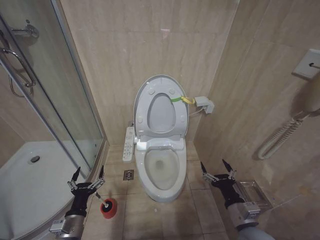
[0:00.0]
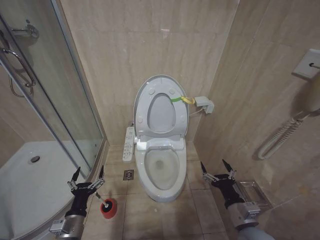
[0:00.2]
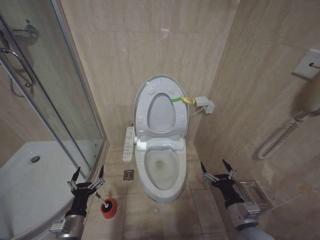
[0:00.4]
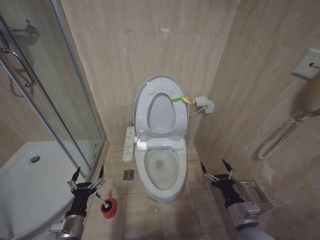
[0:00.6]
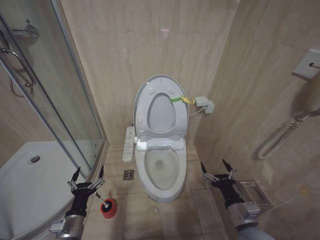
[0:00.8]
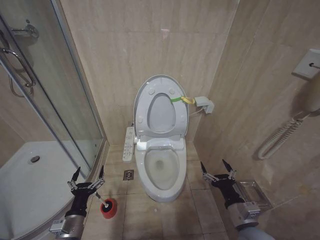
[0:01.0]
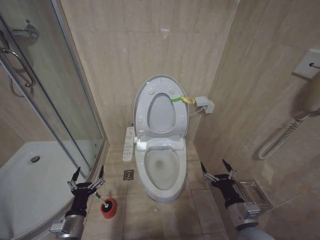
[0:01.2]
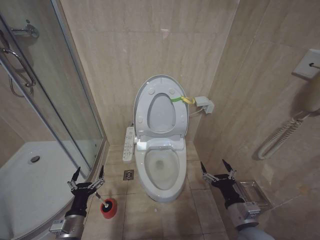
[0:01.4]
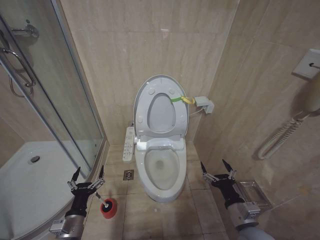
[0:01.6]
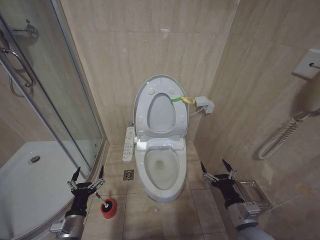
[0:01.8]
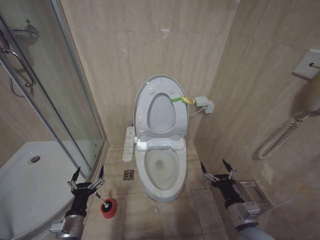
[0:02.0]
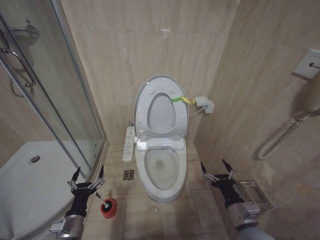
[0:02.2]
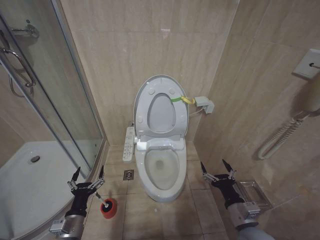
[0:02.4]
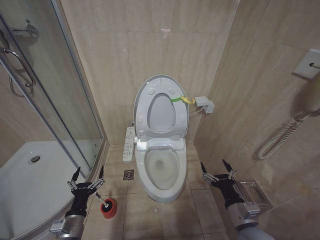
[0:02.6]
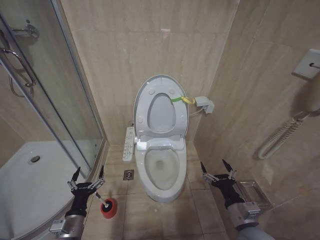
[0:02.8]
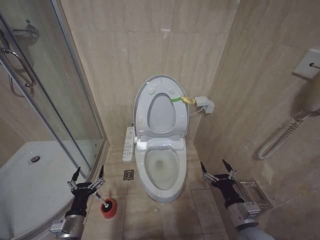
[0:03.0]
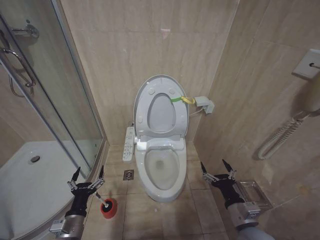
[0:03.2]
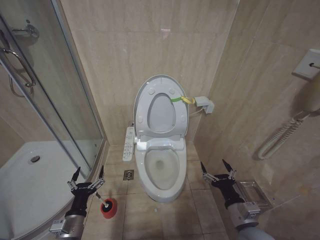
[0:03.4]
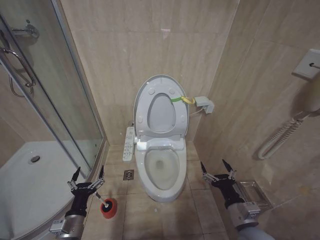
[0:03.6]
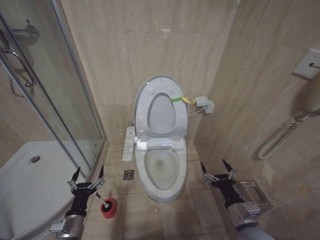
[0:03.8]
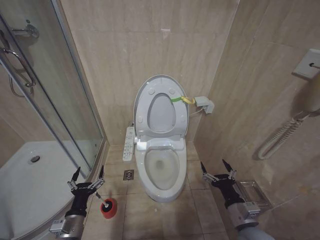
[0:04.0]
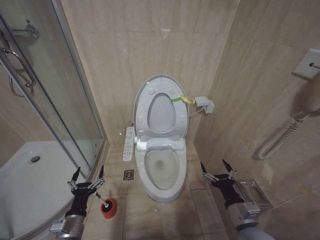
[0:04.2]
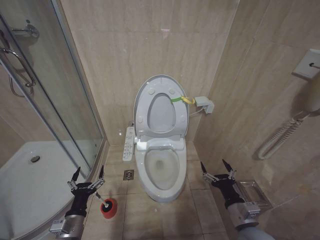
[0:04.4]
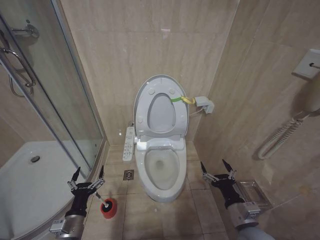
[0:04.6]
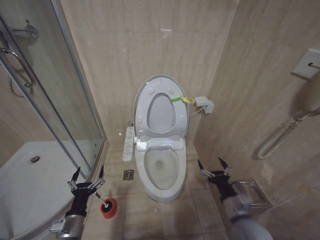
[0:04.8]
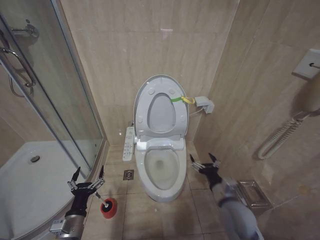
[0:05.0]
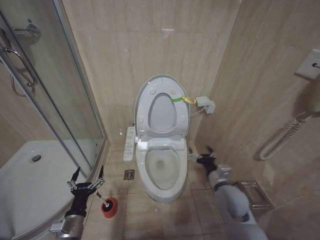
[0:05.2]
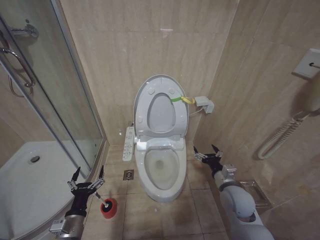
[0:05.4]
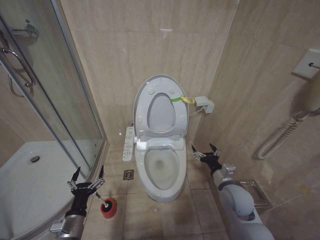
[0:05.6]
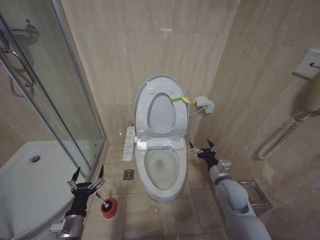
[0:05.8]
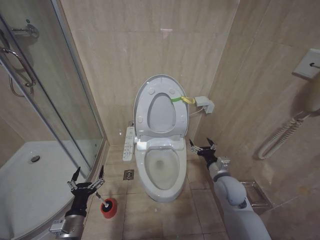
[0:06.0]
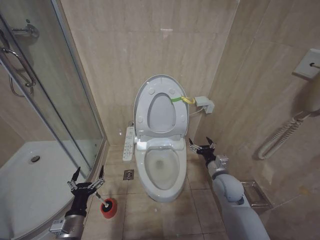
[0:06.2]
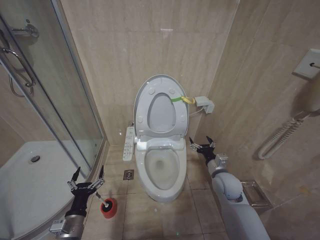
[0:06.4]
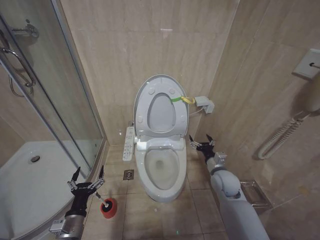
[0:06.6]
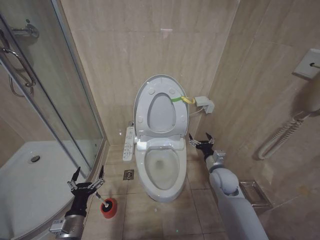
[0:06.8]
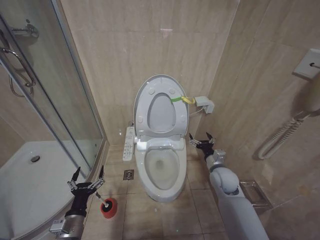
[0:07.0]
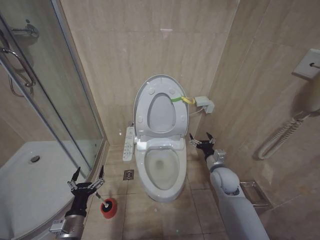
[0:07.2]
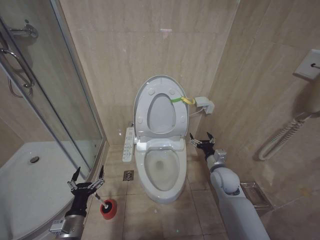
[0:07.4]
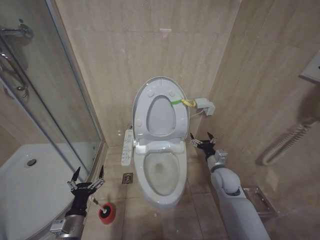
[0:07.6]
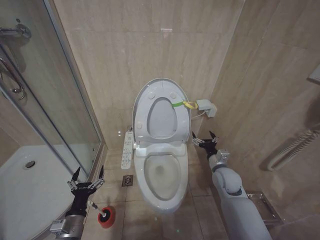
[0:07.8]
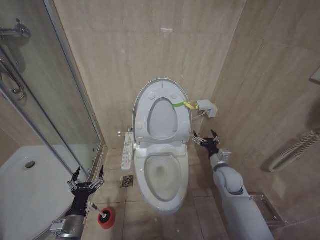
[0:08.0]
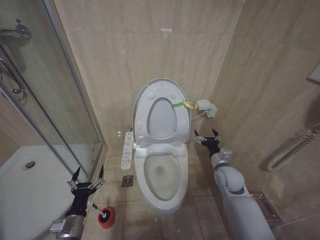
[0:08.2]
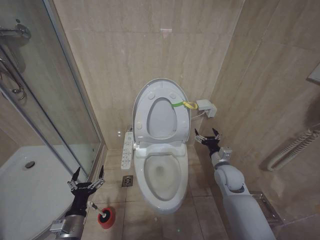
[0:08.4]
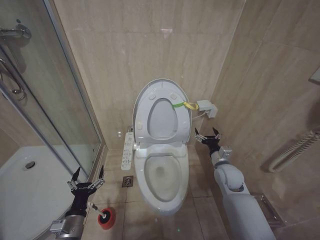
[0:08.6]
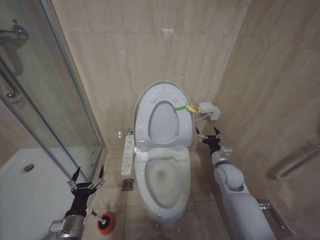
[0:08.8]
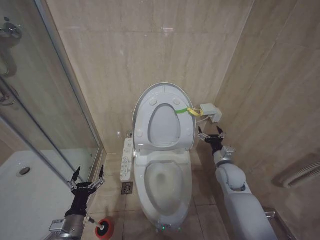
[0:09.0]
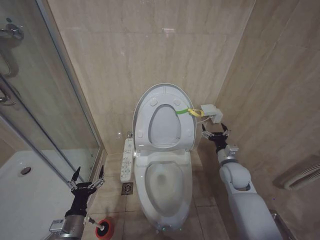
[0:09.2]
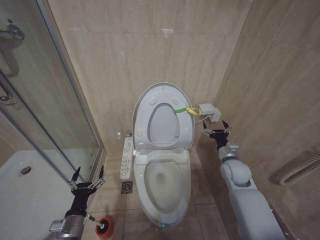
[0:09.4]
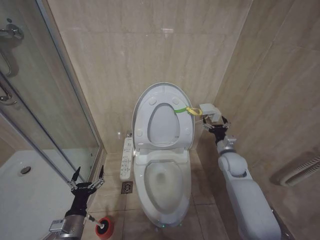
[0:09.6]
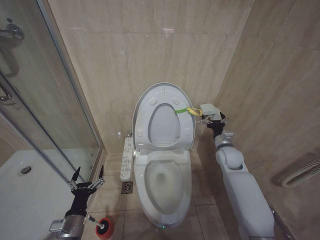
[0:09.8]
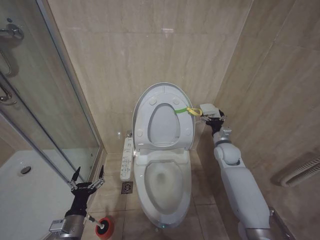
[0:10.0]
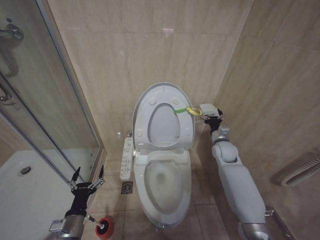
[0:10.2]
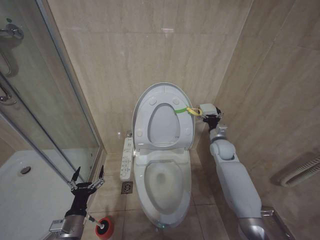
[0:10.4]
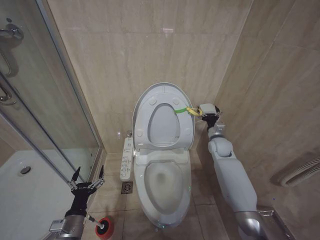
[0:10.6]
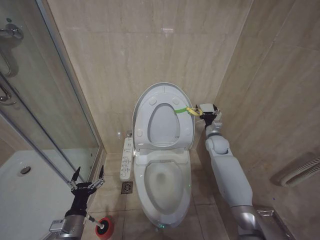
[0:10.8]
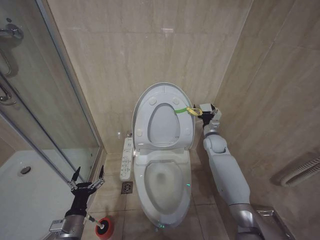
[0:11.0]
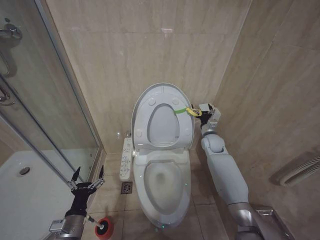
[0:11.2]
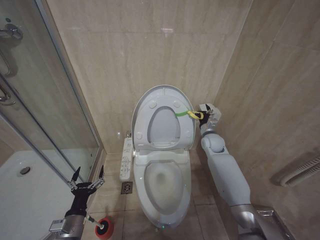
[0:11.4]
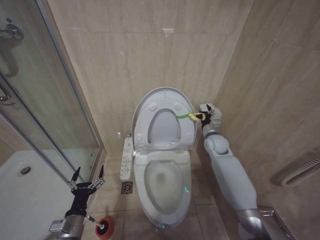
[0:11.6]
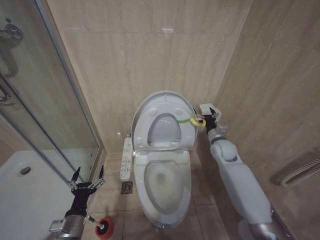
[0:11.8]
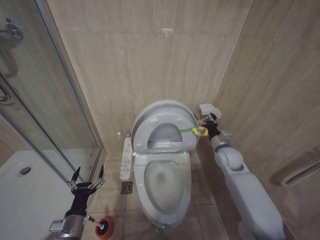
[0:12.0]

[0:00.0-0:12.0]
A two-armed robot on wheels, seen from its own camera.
Task of the whole recording: Open the toilet lid, clean the toilet bowl with a toilet brush, close the toilet lid, and flush.
0:00.0 to 0:04.4: Both grippers stay about where they are.
0:04.4 to 0:06.0: The right gripper shifts about 15 cm forward.
0:06.0 to 0:09.0: There are only small adjustments of the grippers.
0:09.0 to 0:10.4: The right gripper travels forward by roughly 10 cm.
0:10.4 to 0:12.0: The grippers make only small movements.

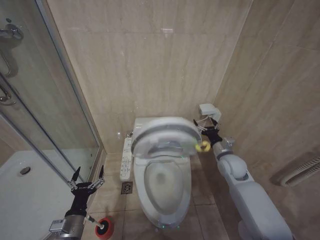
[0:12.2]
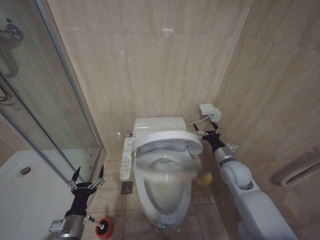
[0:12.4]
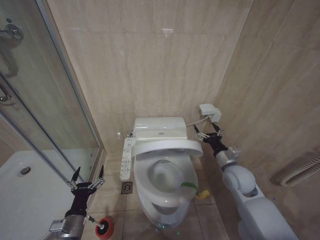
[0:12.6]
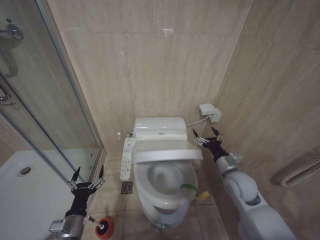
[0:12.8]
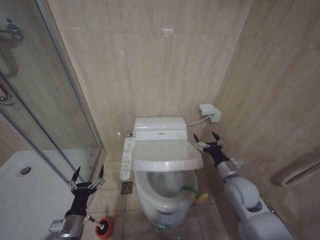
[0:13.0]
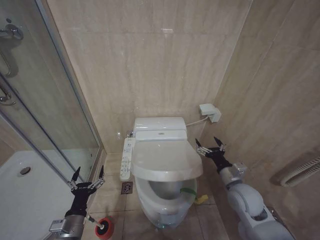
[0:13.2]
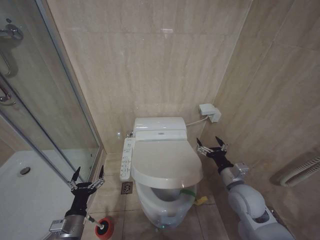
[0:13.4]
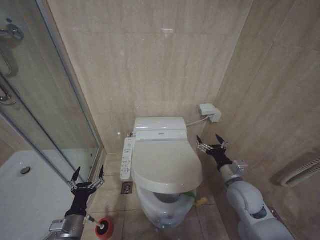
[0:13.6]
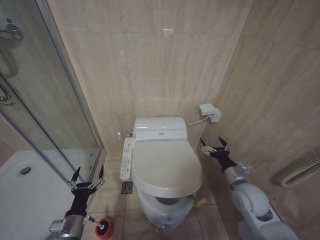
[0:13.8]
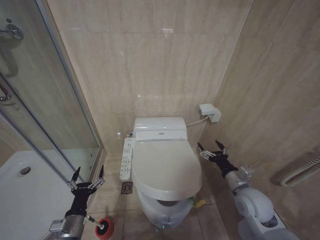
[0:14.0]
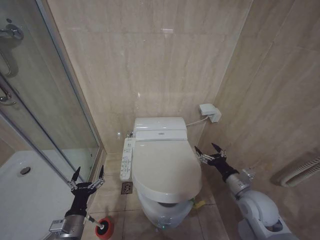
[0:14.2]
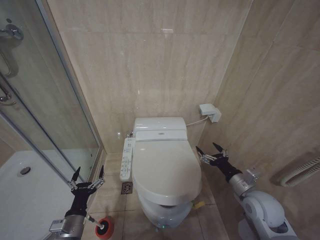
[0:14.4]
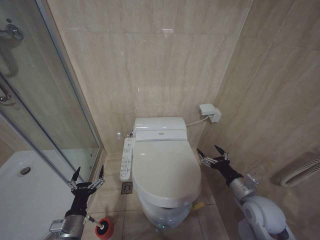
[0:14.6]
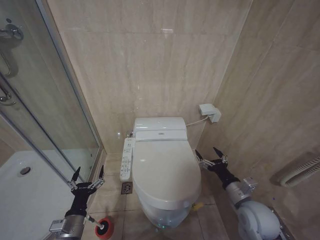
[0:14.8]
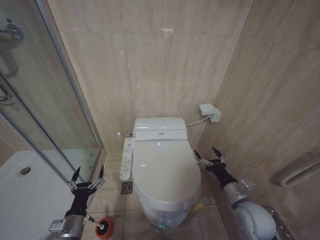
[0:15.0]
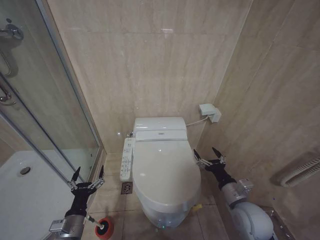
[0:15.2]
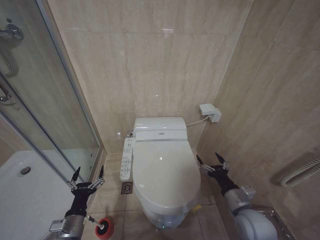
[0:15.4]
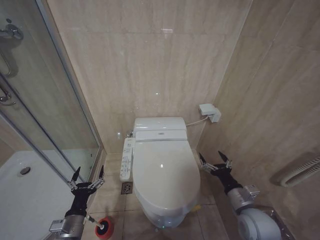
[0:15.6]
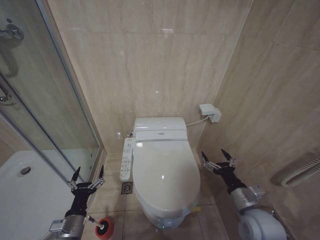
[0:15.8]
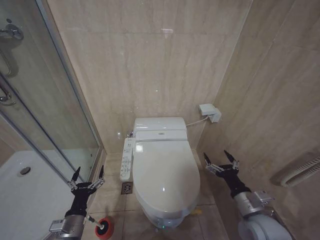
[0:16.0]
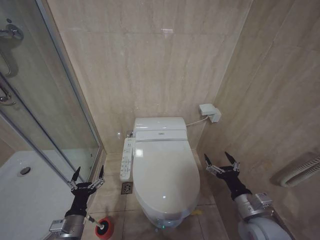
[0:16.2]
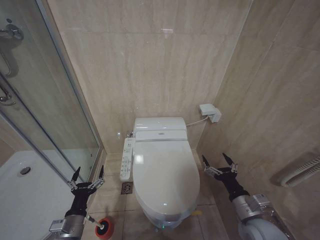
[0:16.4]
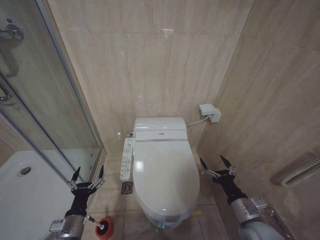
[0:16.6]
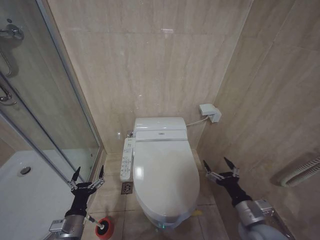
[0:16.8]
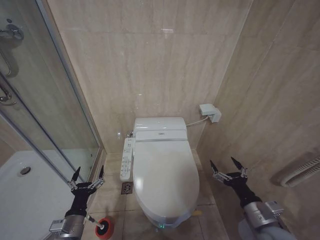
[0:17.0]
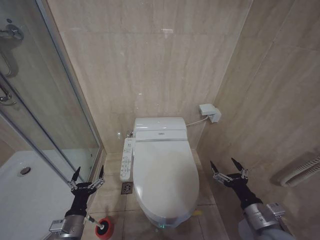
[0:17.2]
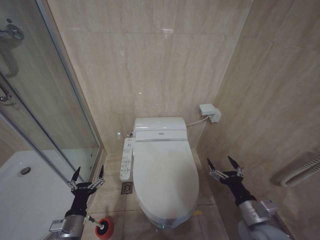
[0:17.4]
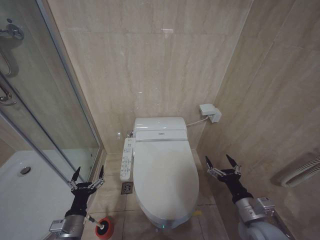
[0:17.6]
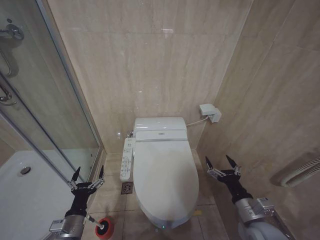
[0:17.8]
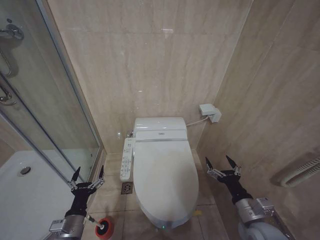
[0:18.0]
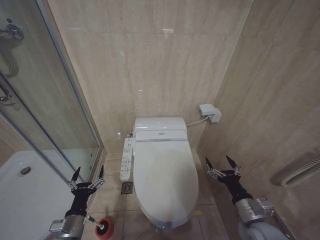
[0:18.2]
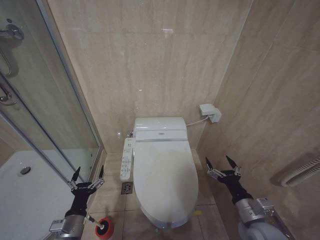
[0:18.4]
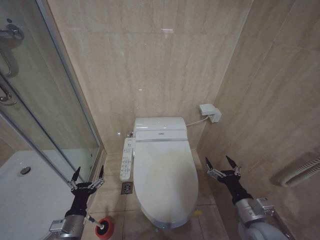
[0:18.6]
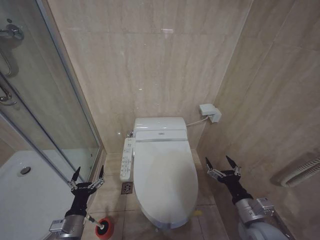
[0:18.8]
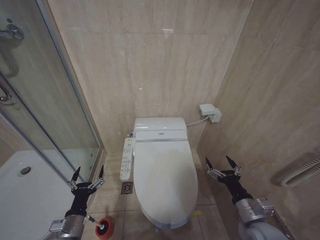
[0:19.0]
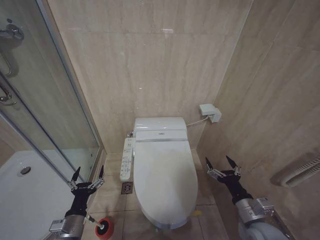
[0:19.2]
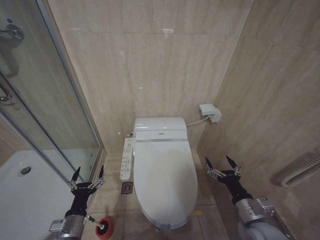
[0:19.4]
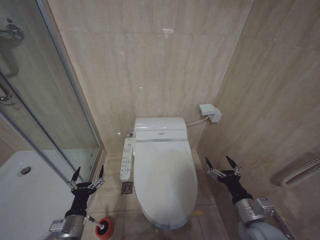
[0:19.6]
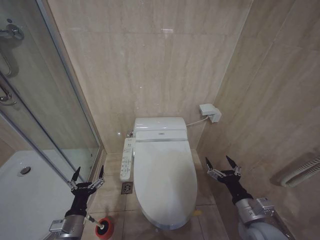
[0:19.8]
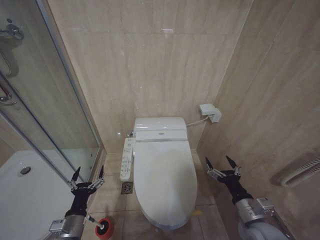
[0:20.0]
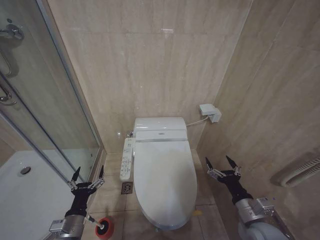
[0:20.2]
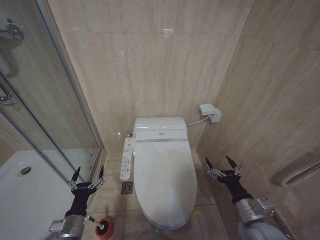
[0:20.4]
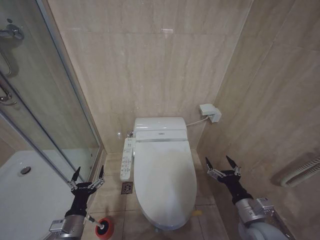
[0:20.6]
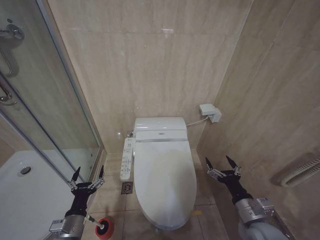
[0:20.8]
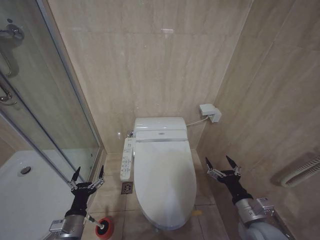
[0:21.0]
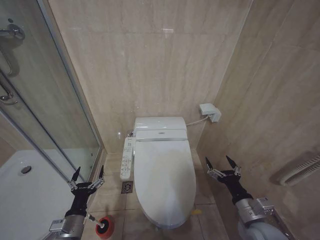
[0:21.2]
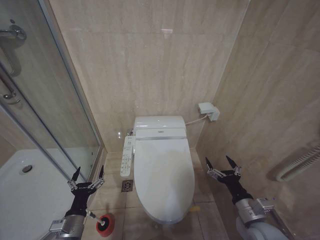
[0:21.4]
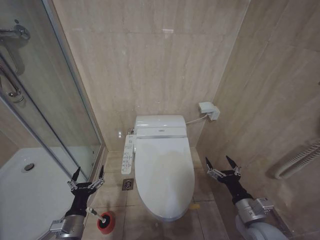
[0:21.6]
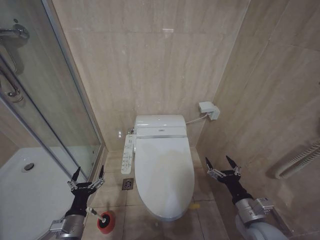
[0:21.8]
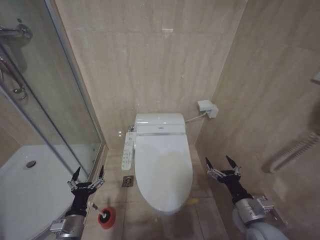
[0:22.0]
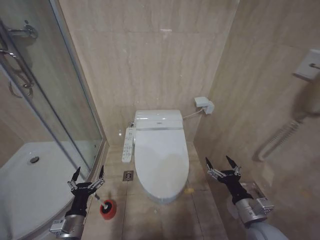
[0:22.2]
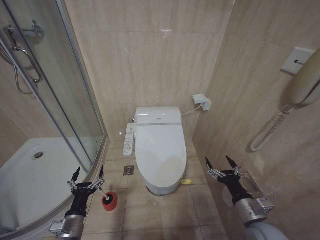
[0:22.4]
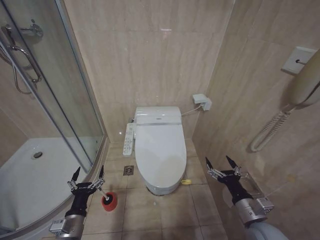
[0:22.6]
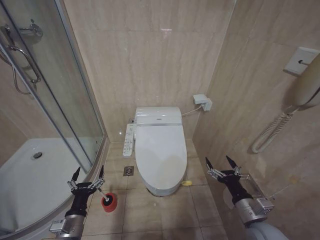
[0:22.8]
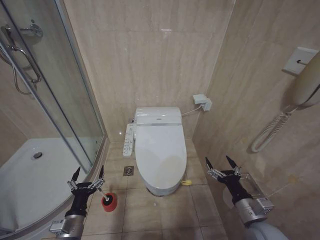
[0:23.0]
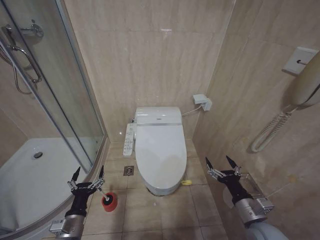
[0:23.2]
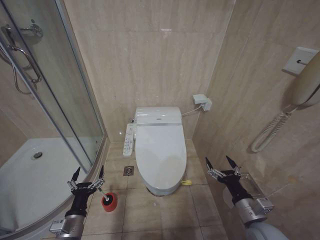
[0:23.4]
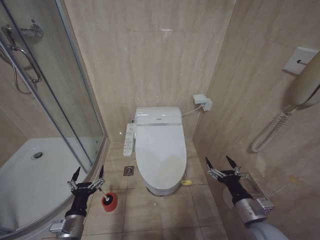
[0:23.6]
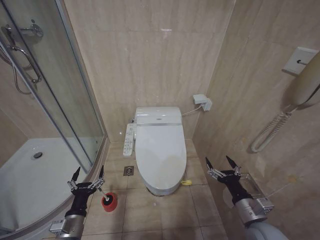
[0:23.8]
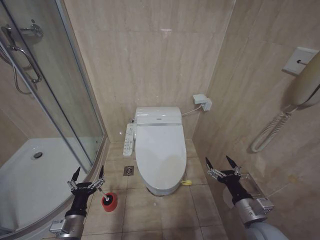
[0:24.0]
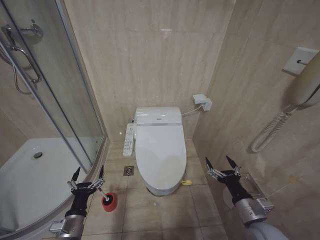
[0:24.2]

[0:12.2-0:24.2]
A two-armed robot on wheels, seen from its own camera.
Task of the whole recording: Open the toilet lid, clean the toilet bowl with a toilet brush, close the toilet lid, and flush.
0:12.2 to 0:13.8: The right gripper is displaced backward by about 10 cm.
0:13.8 to 0:15.2: The right gripper goes approximately 5 cm backward.
0:15.2 to 0:16.6: There are only small adjustments of the grippers.
0:16.6 to 0:18.2: The grippers make only small movements.
0:18.2 to 0:24.2: Both grippers stay put.
